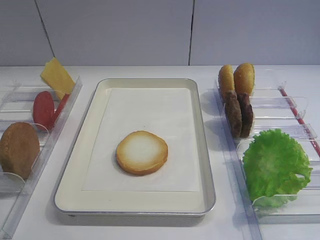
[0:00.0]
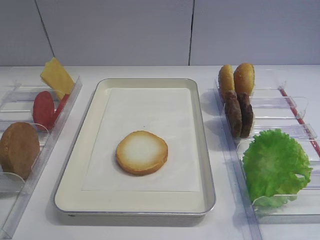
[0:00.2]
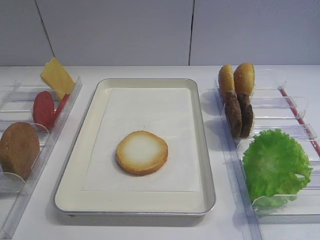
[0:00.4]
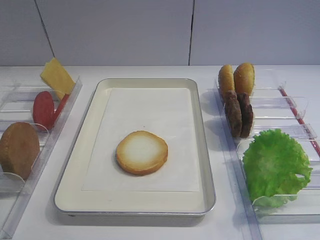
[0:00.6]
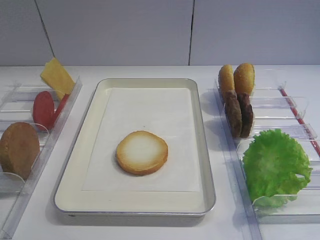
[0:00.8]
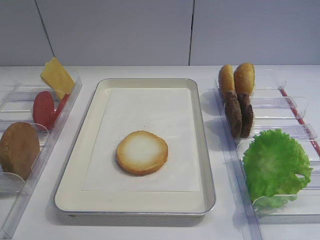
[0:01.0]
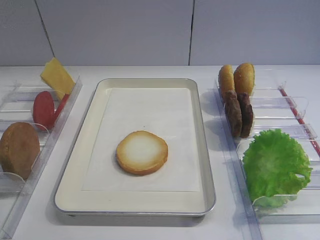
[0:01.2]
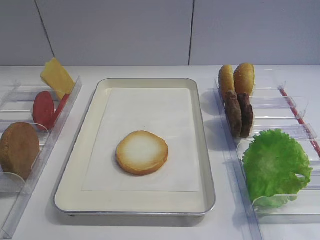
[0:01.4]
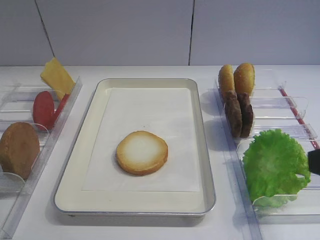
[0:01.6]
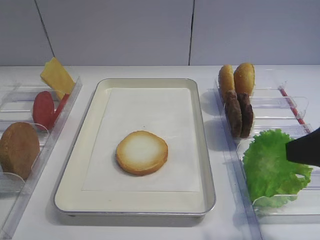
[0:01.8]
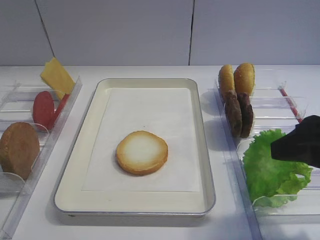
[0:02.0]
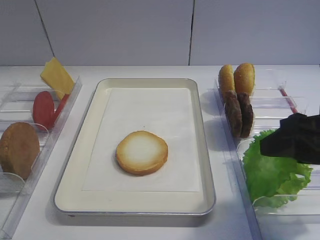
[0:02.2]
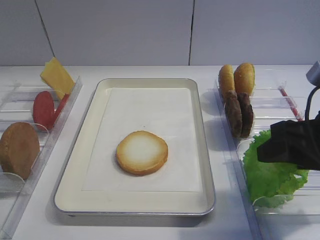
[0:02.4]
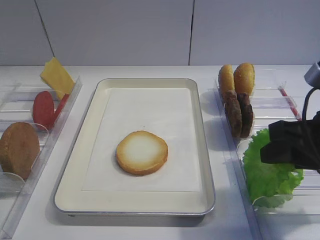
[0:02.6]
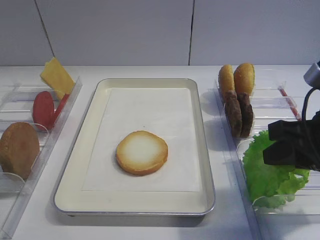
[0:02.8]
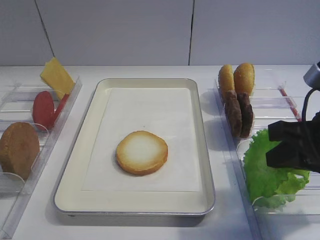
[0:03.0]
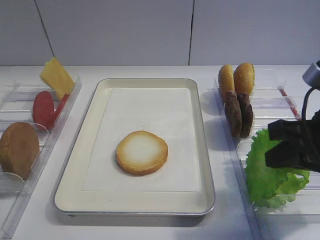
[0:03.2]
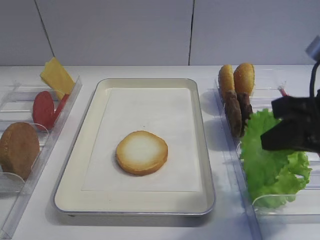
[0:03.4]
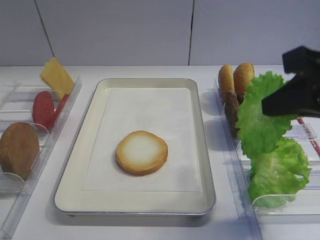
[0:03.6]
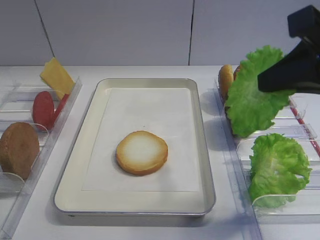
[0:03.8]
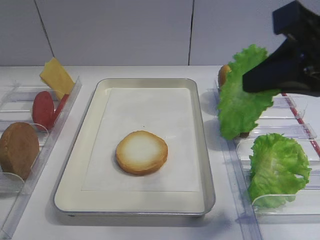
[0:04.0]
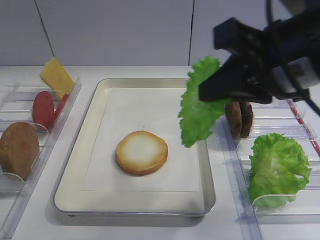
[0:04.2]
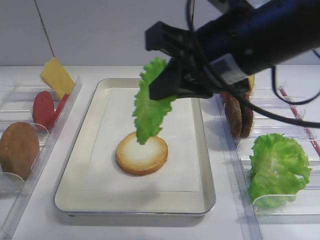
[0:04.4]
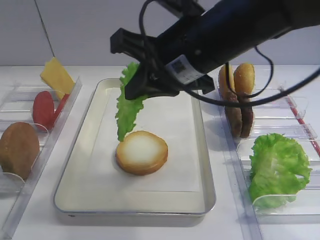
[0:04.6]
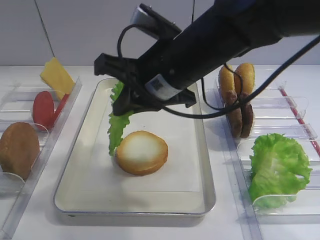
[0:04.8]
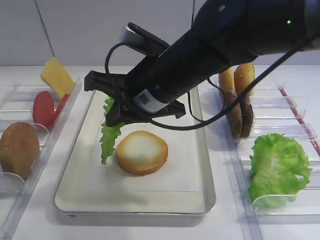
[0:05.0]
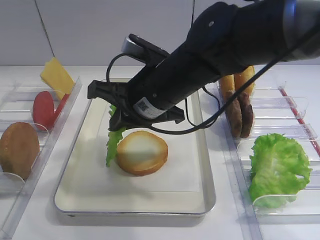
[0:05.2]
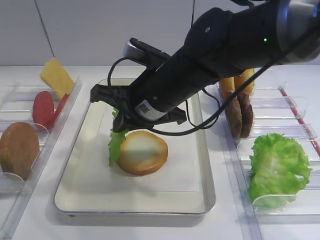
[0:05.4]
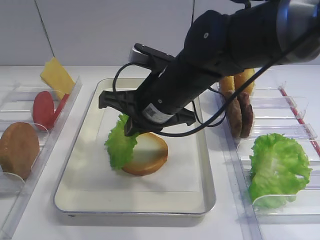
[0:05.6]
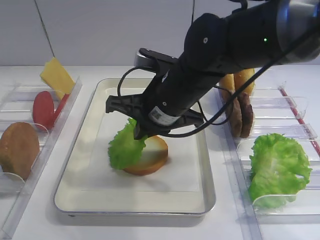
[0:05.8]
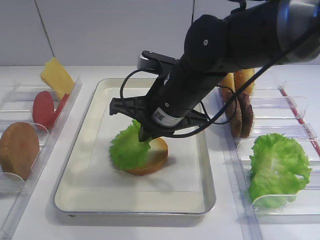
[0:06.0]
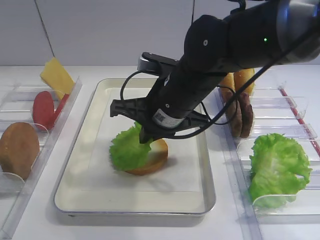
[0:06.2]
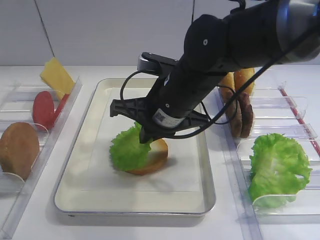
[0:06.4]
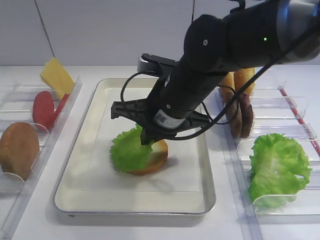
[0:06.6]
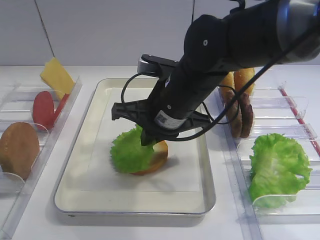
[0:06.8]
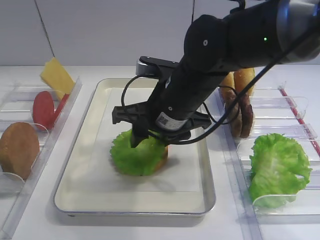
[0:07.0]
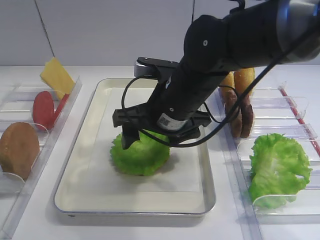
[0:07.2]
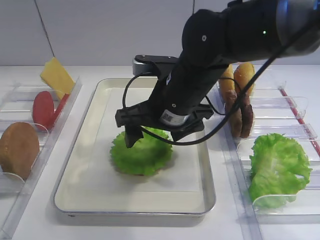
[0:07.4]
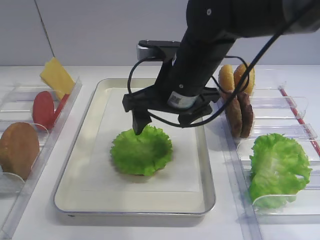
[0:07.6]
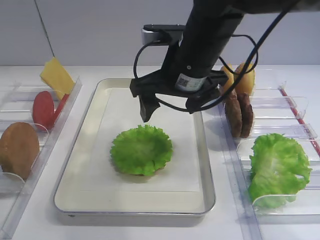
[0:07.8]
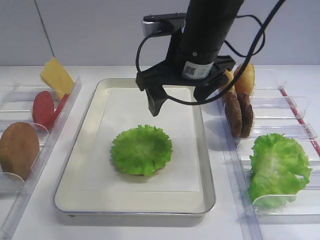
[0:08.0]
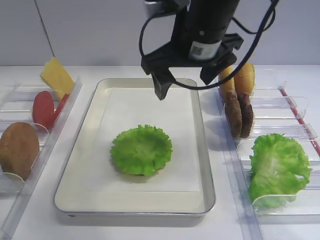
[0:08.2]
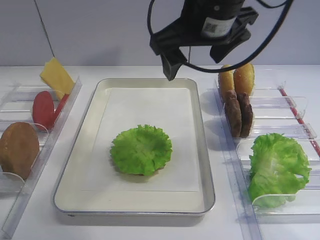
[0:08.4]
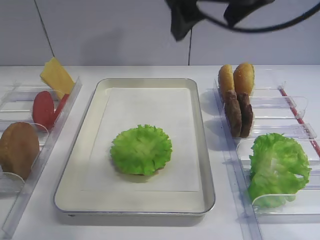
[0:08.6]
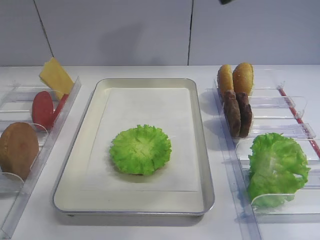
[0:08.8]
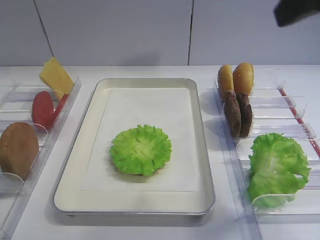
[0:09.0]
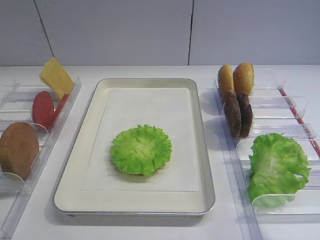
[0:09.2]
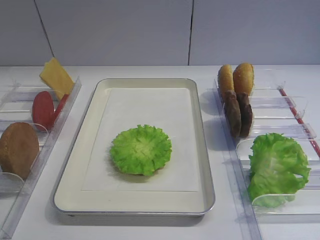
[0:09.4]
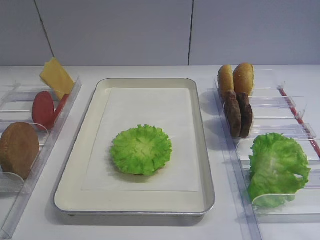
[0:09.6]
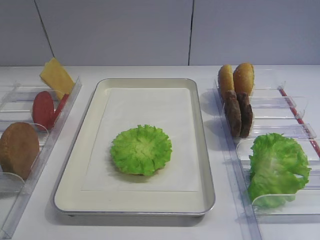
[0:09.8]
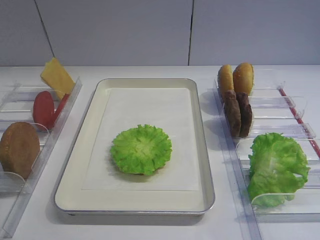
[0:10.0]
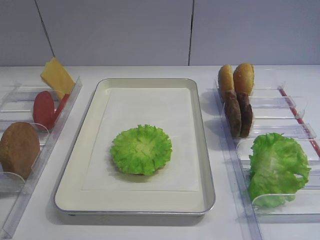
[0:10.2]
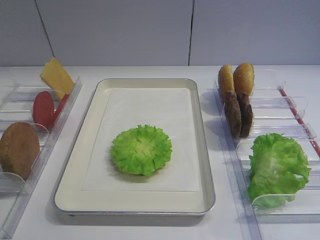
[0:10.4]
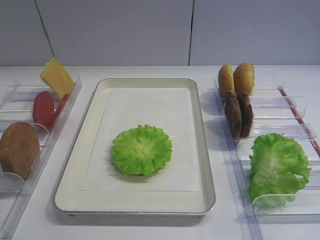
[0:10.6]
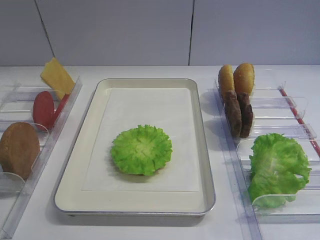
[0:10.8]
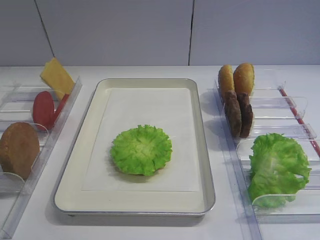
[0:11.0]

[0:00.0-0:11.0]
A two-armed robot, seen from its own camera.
Step, 0:00.0 to 0:03.2: Pick up the lettuce leaf with the right gripper.
Step, 0:03.4 to 0:07.6: Place the lettuce leaf on the bread slice with the right gripper.
0:01.6 to 0:03.2: The right gripper shifts approximately 10 cm forward and downward, and closes.
0:03.2 to 0:04.8: The right gripper moves to the left and forward, about 20 cm.
0:04.8 to 0:06.2: The right gripper goes roughly 5 cm downward.
0:06.2 to 0:07.8: The right gripper changes place by approximately 5 cm, and opens.
0:07.8 to 0:09.4: The right gripper is displaced backward, to the right and upward by approximately 35 cm.

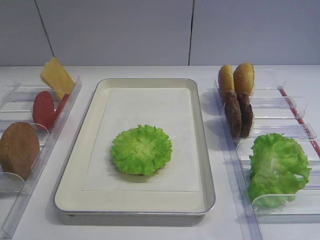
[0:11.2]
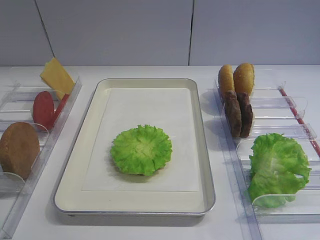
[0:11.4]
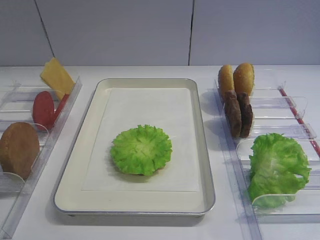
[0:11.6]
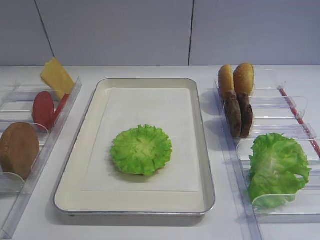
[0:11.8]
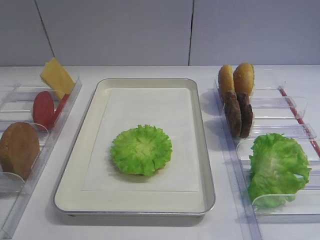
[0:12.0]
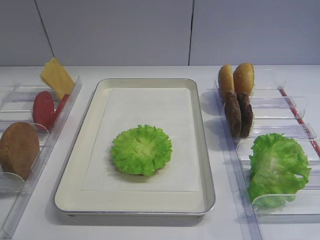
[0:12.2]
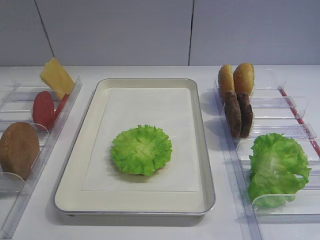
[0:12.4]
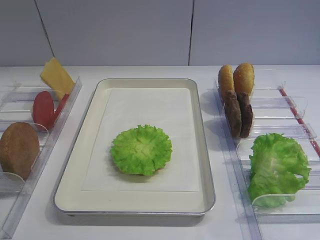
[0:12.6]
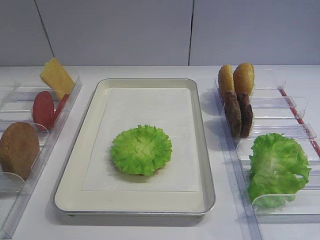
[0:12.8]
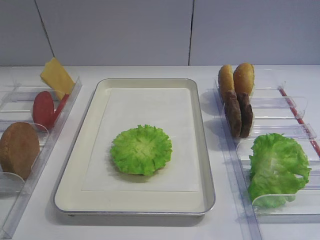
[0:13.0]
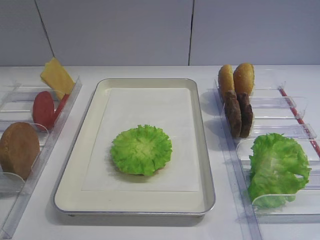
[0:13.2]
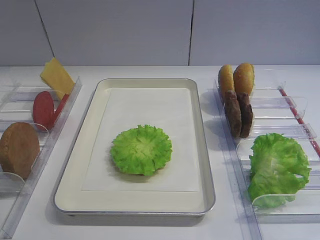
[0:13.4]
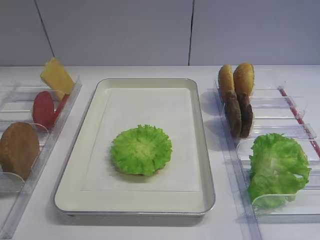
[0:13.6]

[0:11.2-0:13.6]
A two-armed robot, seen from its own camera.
0:11.2 to 0:13.6: Neither gripper changes place.

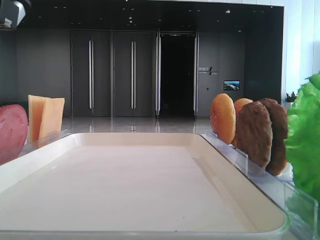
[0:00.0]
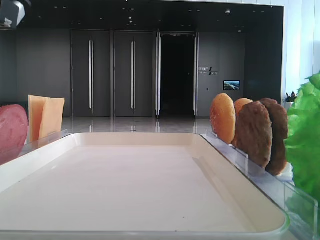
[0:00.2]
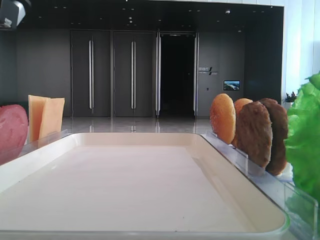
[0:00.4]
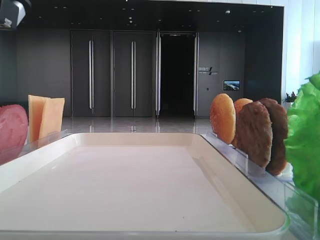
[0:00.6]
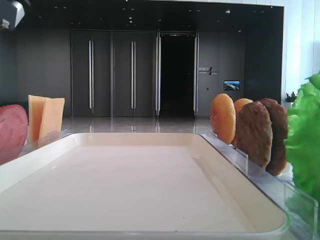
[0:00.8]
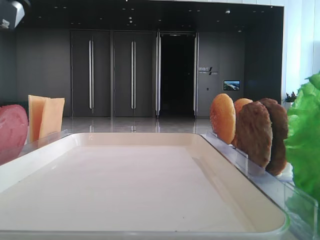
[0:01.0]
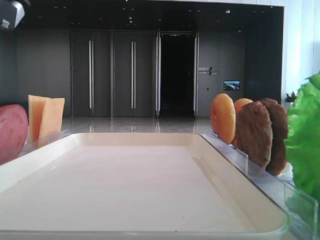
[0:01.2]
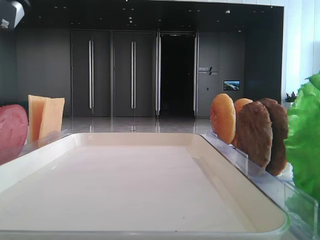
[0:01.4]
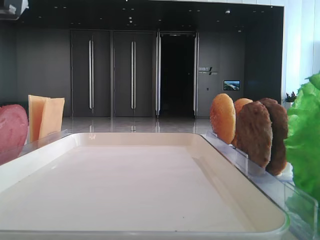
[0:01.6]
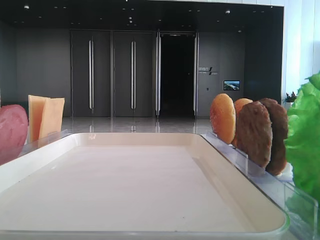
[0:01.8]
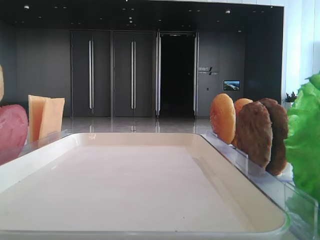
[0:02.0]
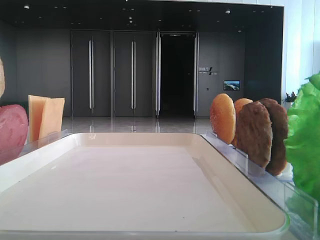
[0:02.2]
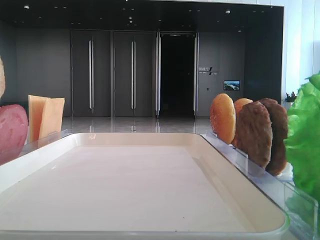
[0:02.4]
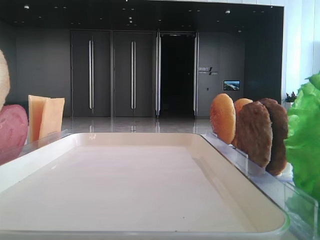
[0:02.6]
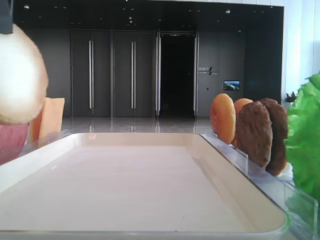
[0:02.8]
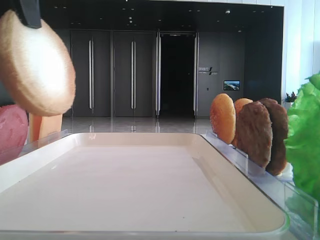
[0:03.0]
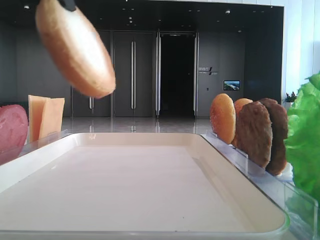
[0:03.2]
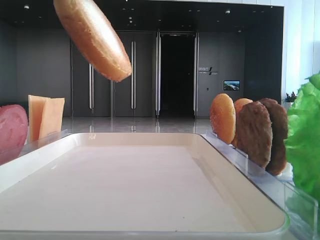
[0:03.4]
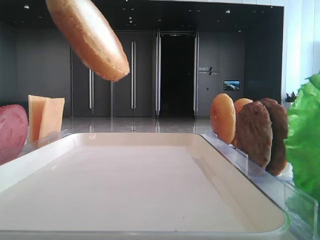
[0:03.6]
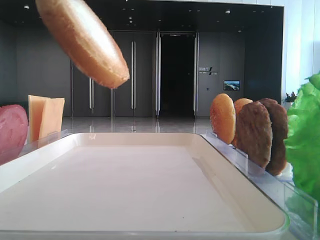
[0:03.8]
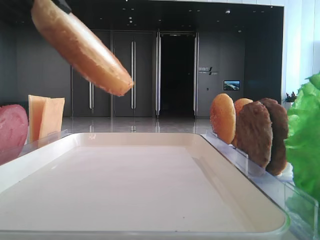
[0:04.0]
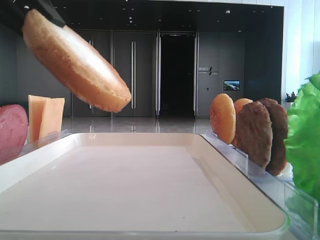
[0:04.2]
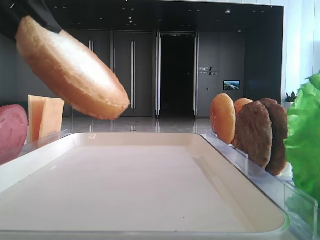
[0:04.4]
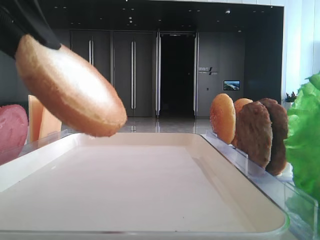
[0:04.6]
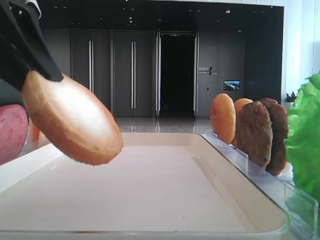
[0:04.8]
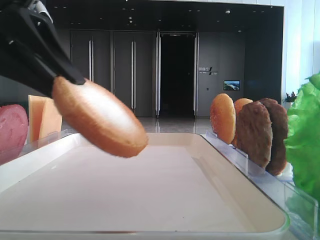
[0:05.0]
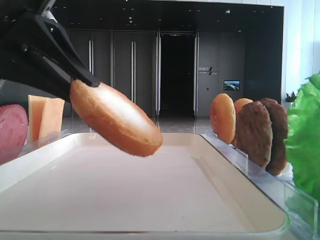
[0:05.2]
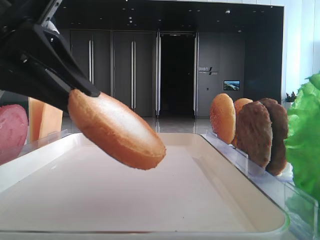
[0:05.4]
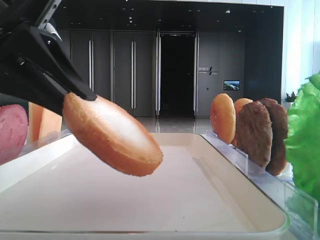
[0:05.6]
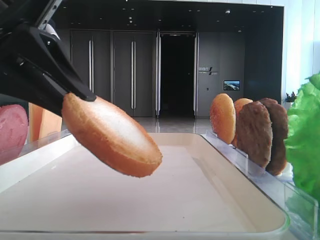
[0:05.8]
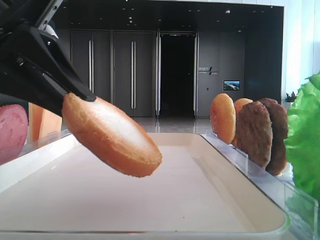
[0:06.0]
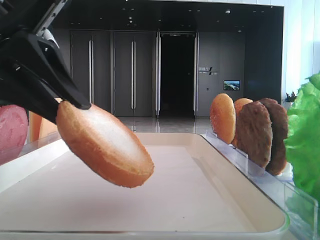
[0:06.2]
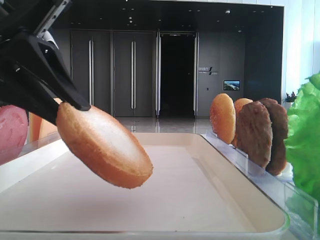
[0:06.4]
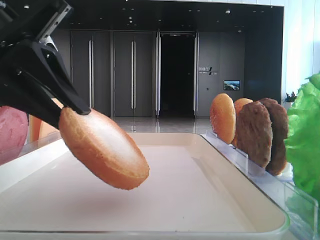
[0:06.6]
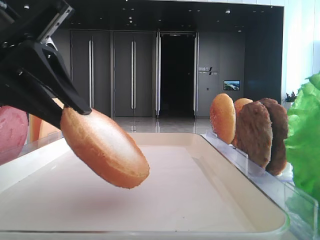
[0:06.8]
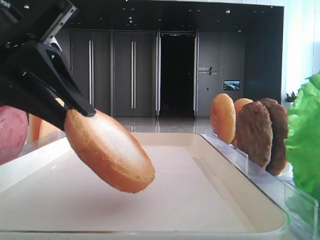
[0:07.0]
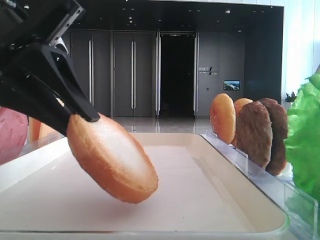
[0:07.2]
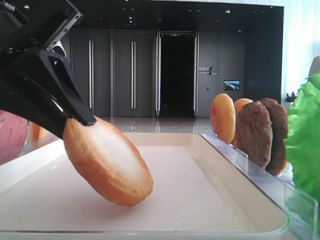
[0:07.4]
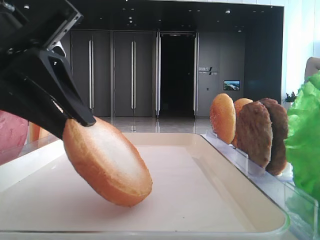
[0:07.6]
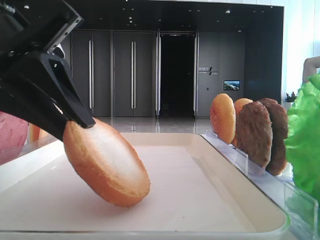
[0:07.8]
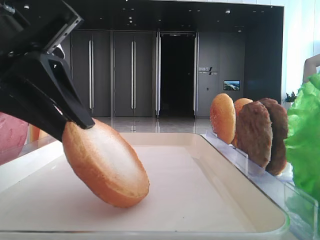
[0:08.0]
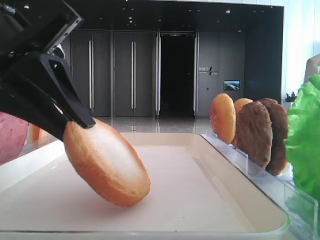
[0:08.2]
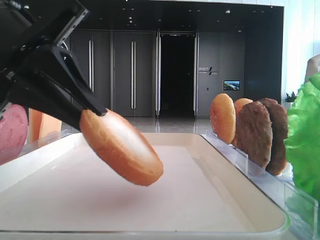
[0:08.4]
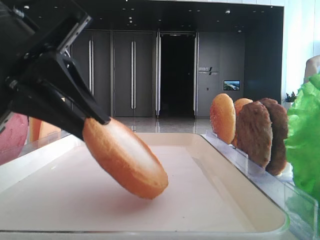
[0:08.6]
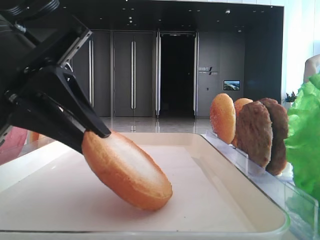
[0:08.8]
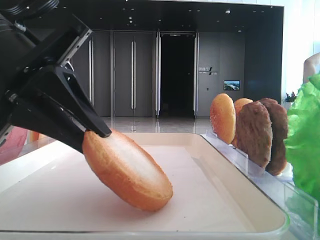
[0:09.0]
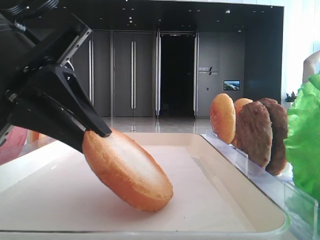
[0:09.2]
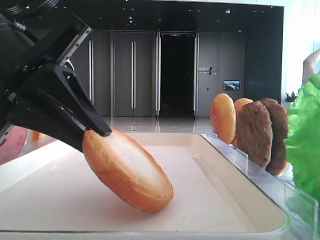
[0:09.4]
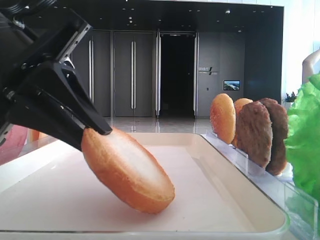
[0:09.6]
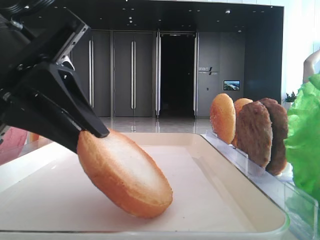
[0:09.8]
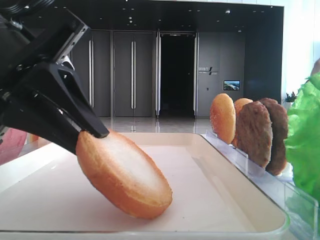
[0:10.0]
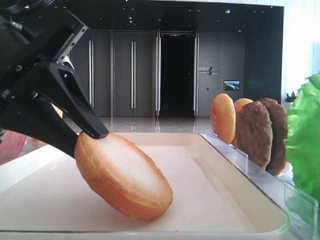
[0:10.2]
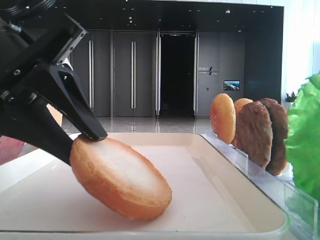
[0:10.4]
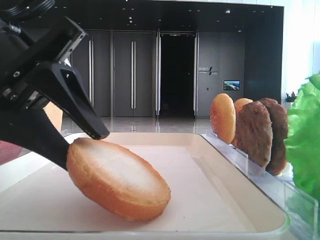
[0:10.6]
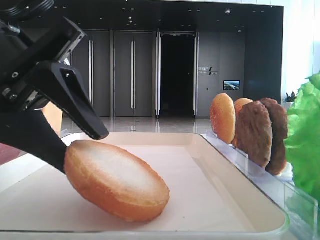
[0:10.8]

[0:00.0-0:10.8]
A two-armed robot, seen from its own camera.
0:01.6 to 0:03.0: The left gripper travels upward by roughly 5 cm.
0:03.0 to 0:04.6: The left gripper shifts roughly 5 cm downward.
0:04.6 to 0:06.2: The left gripper goes approximately 5 cm downward.
0:06.2 to 0:09.2: The grippers stay close to where they were, moving slightly.
0:09.2 to 0:10.8: The left gripper opens.
